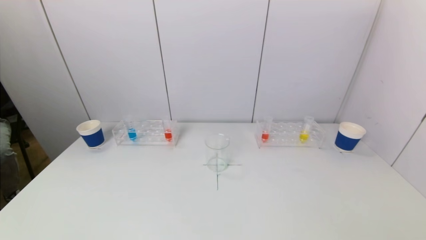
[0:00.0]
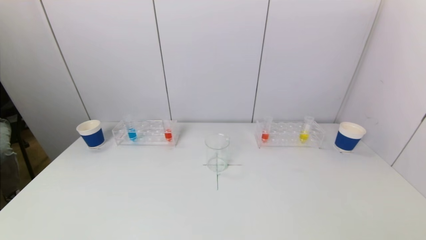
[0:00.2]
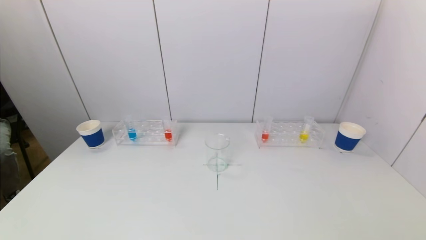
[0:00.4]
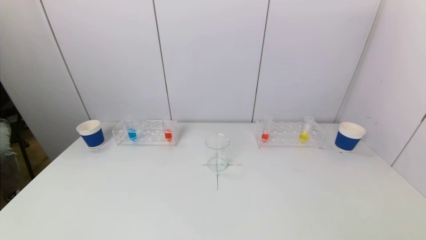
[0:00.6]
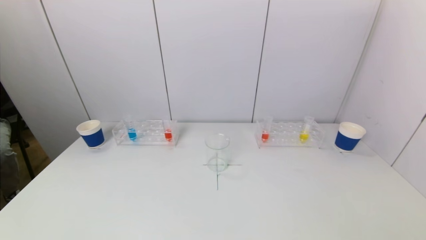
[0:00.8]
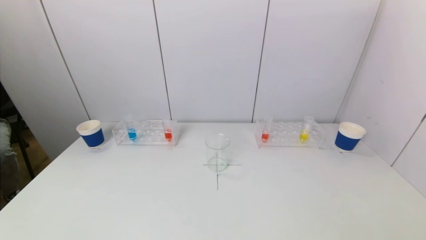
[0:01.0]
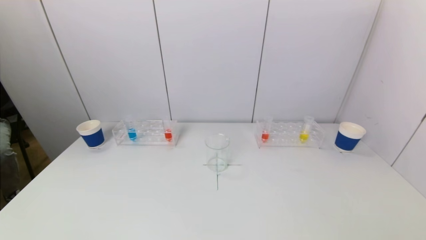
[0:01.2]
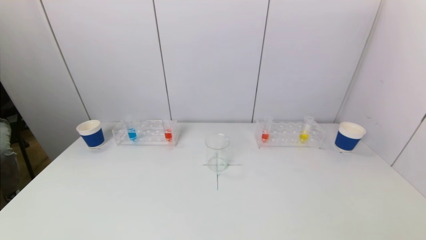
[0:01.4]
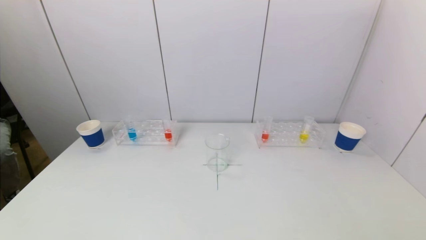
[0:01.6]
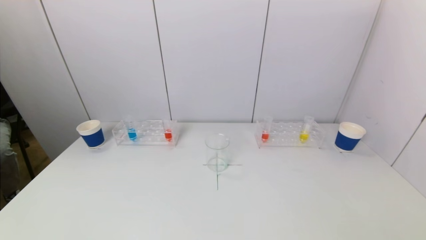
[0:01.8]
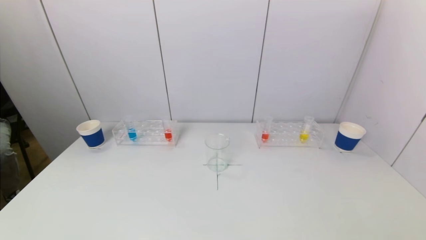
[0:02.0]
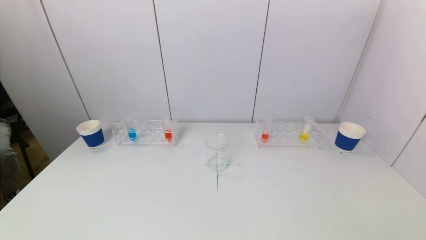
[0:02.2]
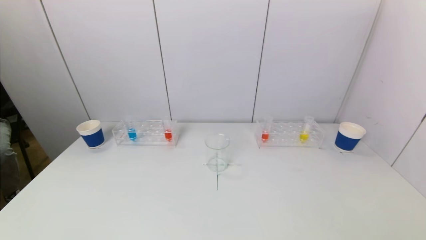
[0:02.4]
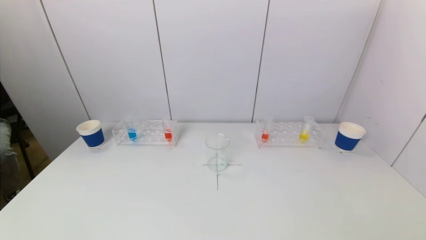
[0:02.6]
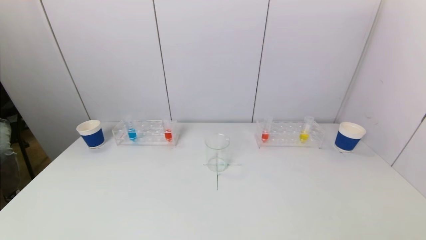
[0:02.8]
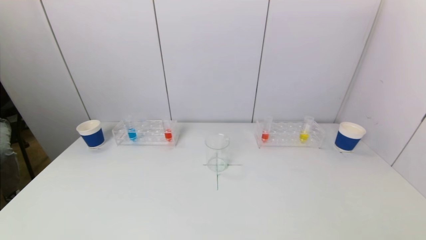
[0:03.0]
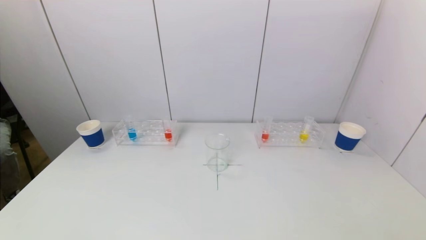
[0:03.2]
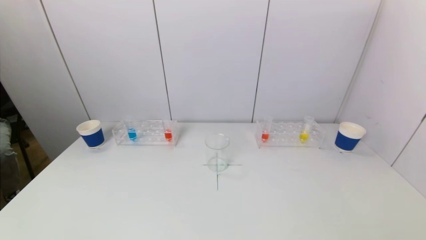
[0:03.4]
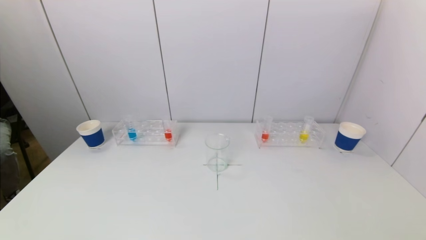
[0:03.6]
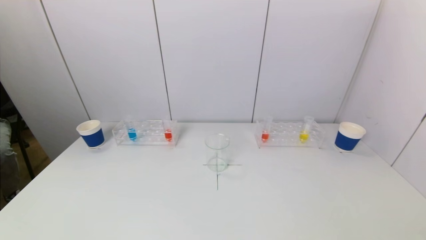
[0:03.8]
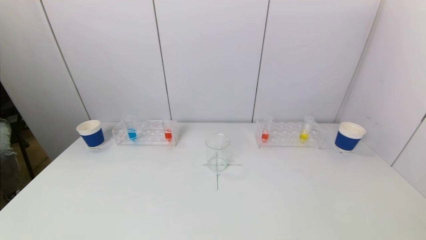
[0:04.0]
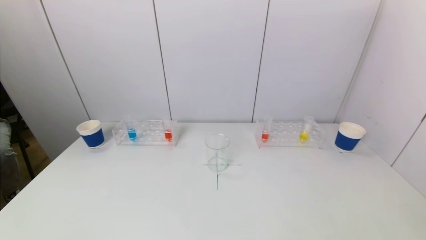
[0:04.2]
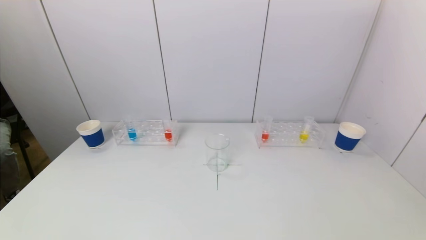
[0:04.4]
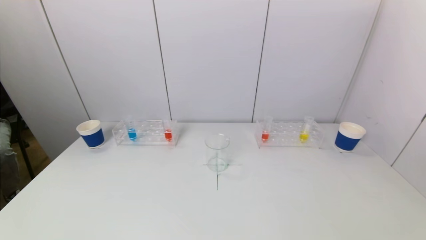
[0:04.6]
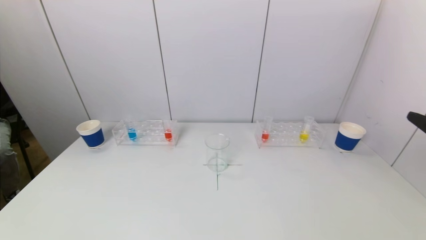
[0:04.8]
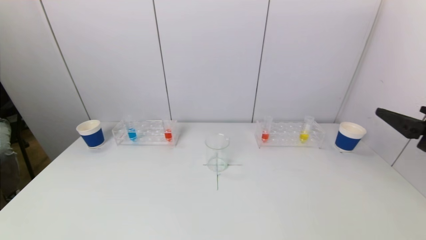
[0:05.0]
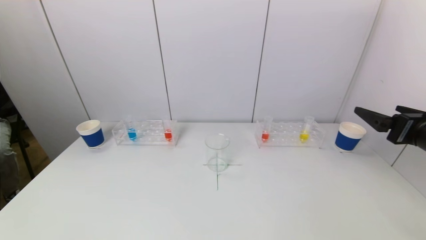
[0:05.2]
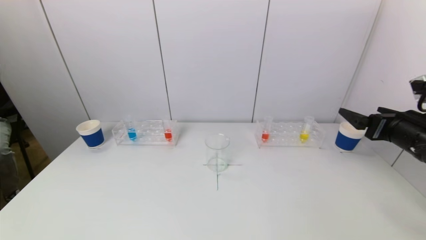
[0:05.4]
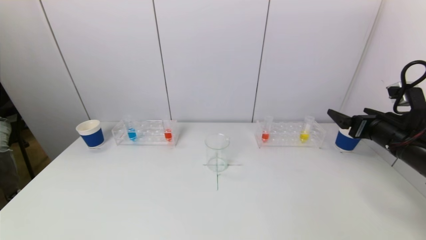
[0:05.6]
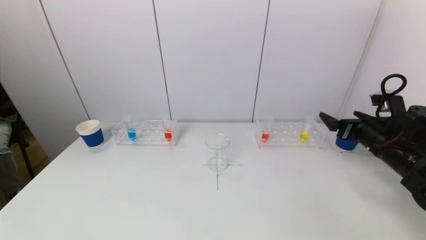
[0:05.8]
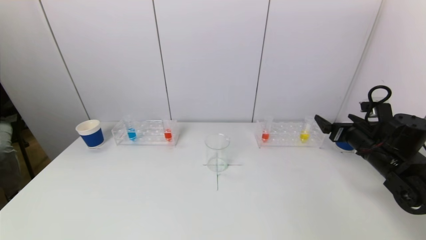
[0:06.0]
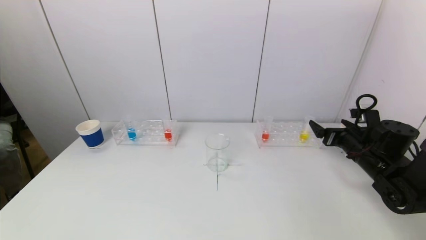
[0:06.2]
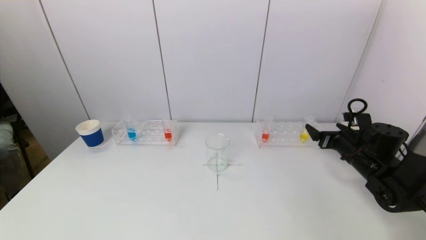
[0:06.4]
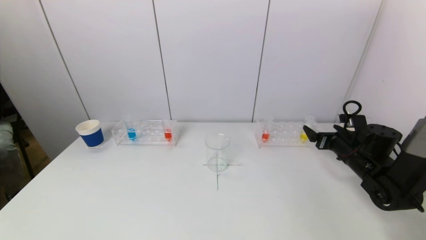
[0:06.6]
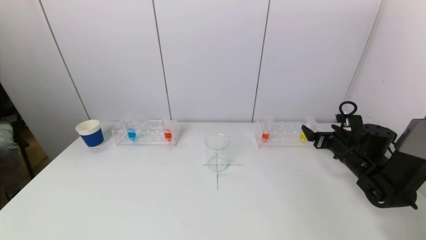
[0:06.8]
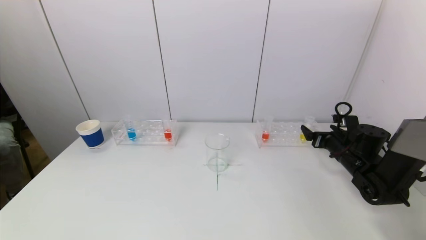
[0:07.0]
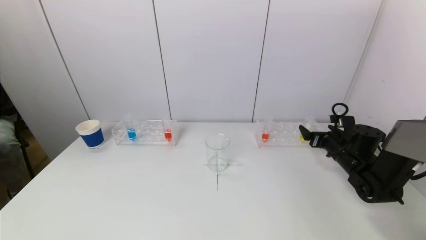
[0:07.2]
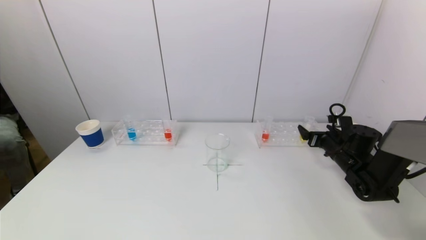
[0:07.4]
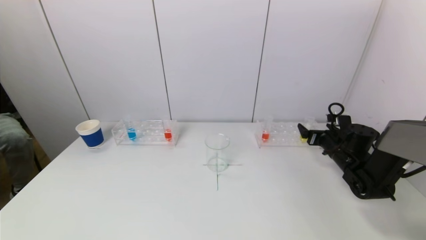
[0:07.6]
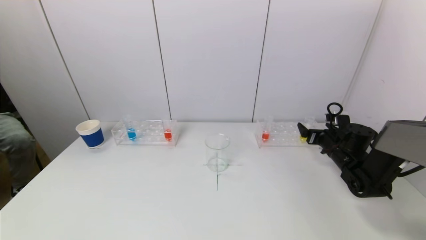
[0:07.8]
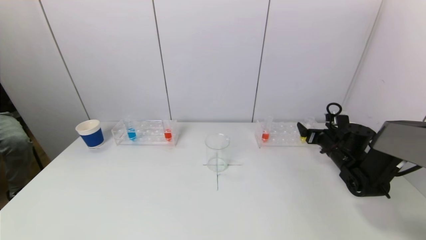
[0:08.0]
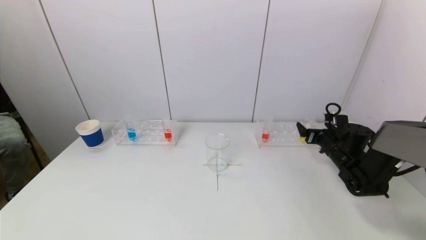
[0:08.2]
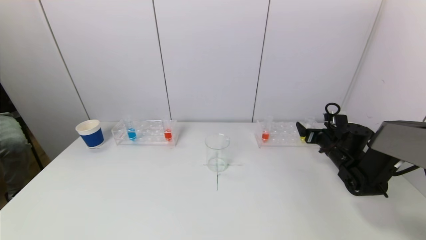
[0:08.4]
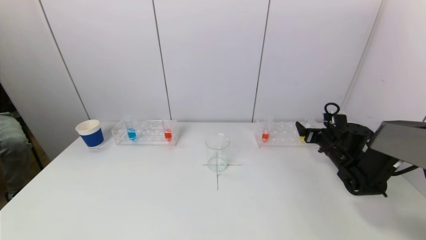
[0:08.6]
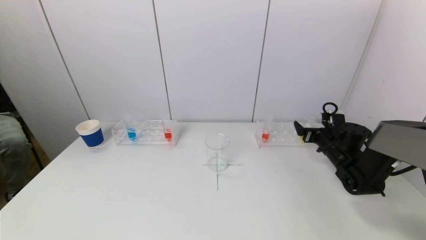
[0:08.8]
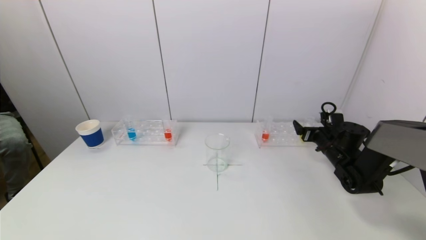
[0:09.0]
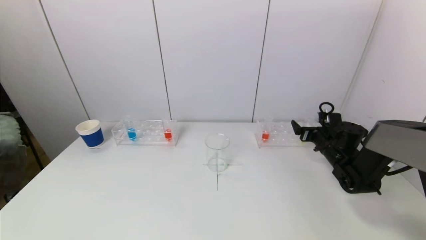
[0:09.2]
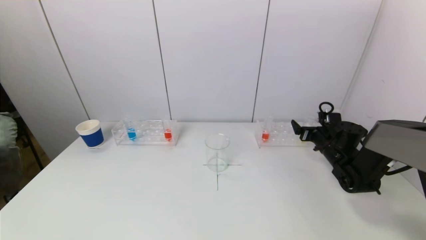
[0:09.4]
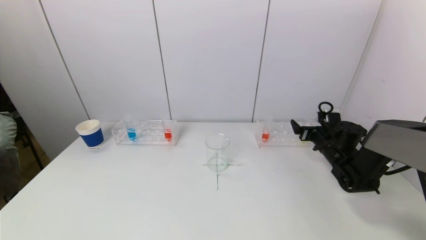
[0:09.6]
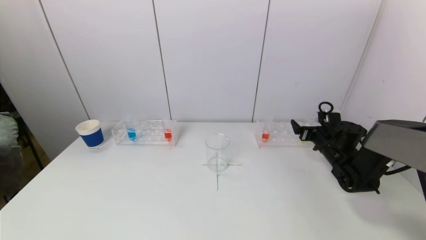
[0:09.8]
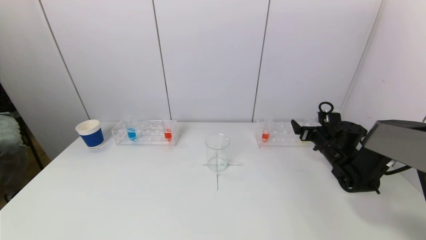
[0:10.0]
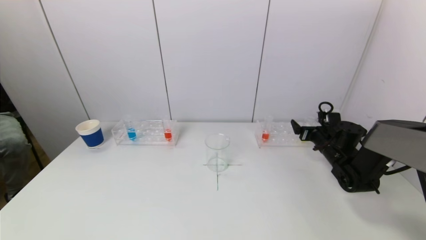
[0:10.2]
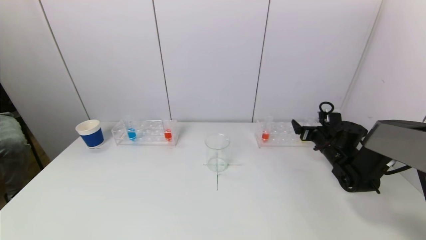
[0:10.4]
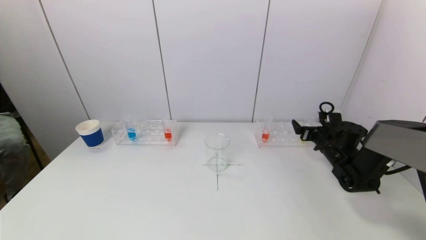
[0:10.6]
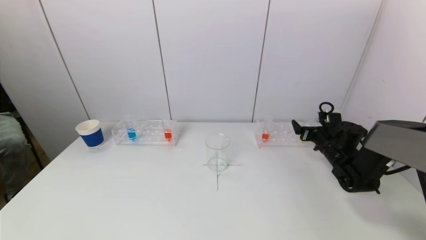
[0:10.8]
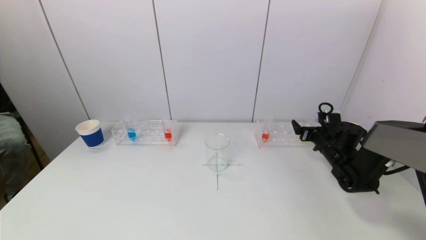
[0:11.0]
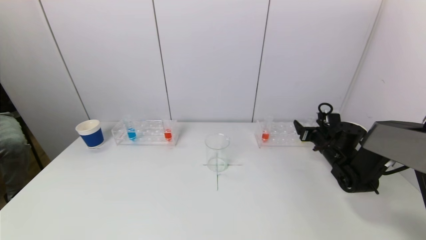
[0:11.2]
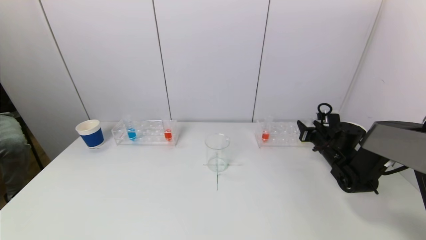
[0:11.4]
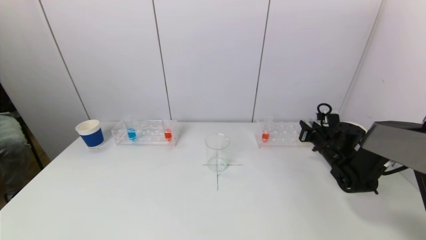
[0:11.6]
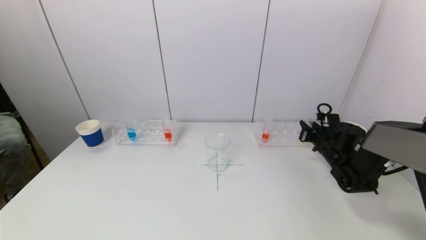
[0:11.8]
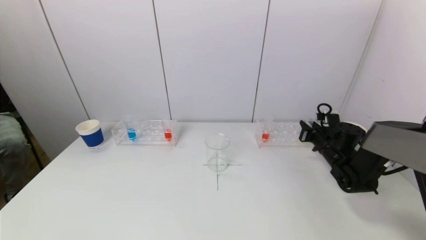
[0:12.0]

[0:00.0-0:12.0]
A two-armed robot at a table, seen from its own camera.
Task of the whole recording: pick up a test tube with pigment on left test tube rack and a test tube with pigment on right test tube rack by grippers and pour them into the beaker.
Step, 0:00.0 to 0:12.0: Grasp the yellow reagent with the right gripper.
0:00.0 to 0:03.0: Both grippers stay about where they are.
0:04.4 to 0:06.0: The right gripper is displaced forward and downward by approximately 30 cm.
0:06.0 to 0:07.6: The right gripper travels forward and downward by approximately 10 cm.
0:07.6 to 0:09.0: The grippers move only a little.
0:09.0 to 0:10.4: Both grippers stay about where they are.
0:10.4 to 0:12.0: The right gripper closes.

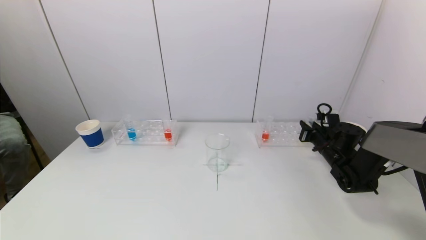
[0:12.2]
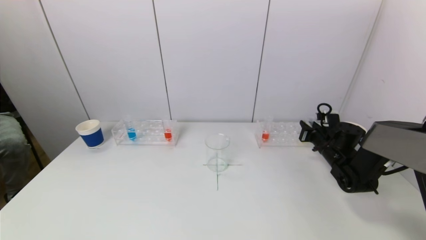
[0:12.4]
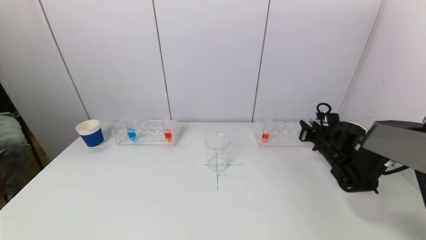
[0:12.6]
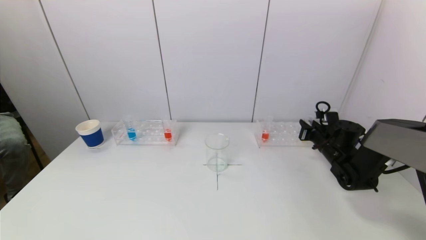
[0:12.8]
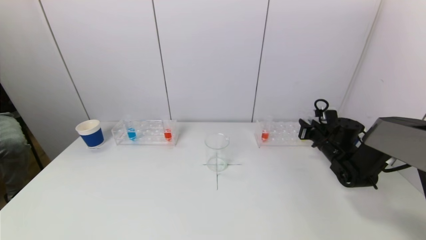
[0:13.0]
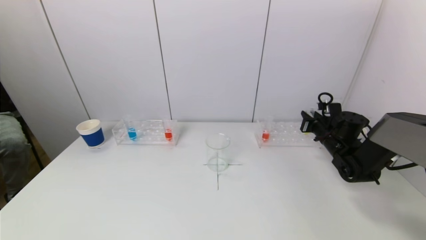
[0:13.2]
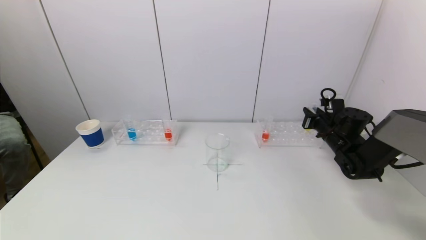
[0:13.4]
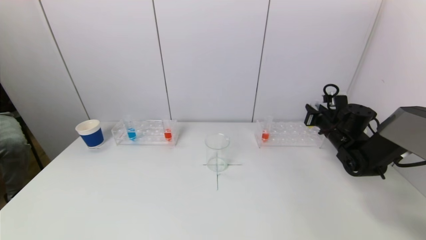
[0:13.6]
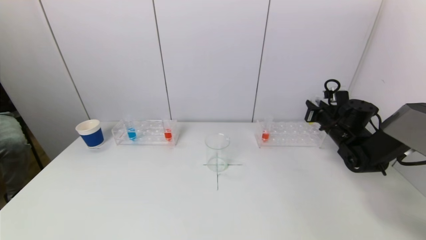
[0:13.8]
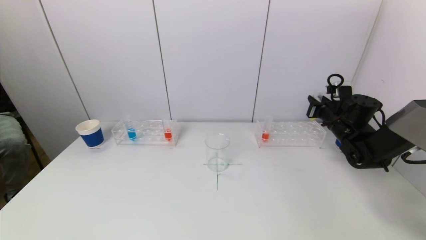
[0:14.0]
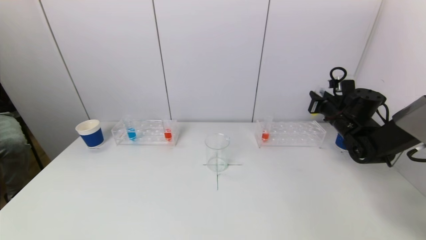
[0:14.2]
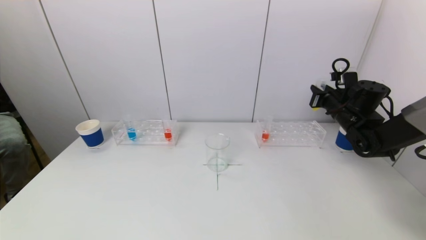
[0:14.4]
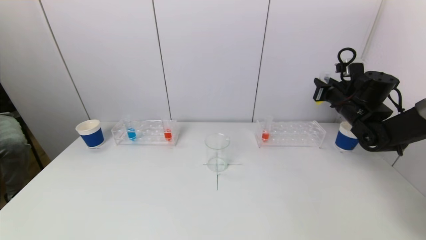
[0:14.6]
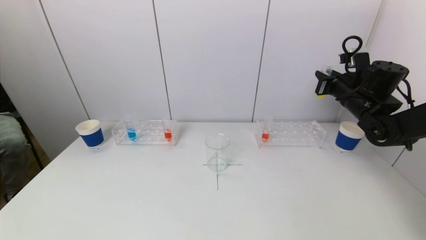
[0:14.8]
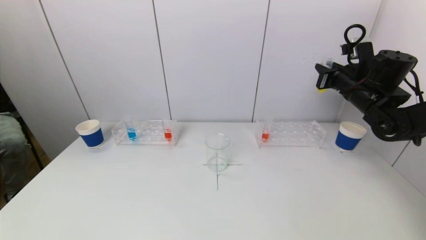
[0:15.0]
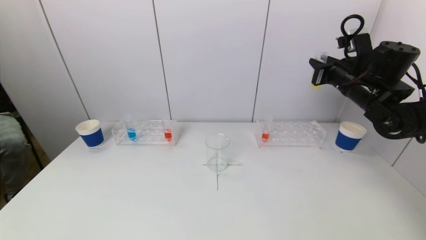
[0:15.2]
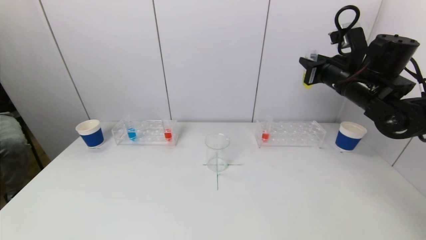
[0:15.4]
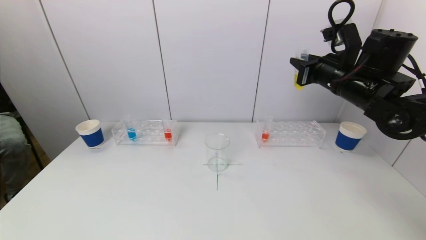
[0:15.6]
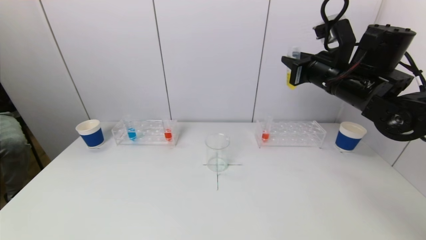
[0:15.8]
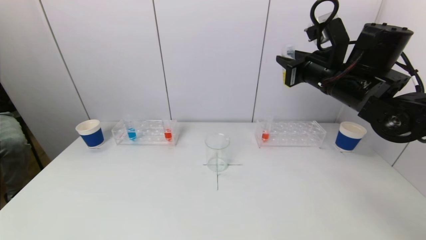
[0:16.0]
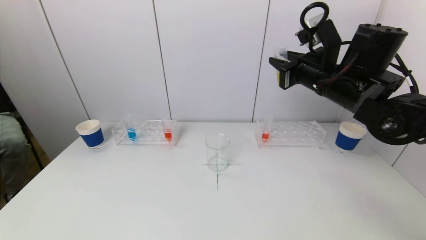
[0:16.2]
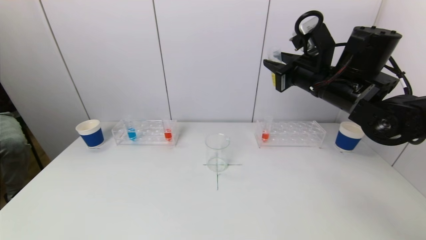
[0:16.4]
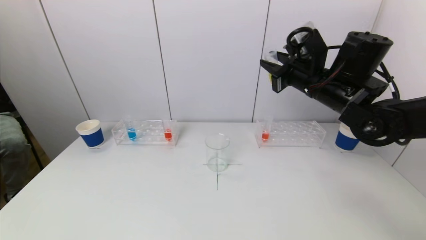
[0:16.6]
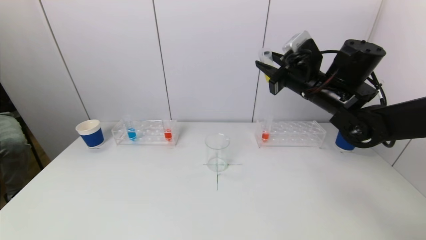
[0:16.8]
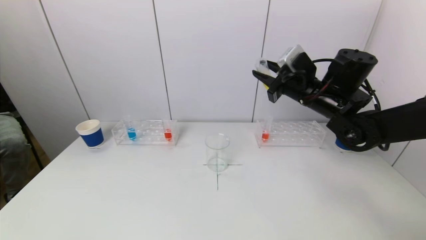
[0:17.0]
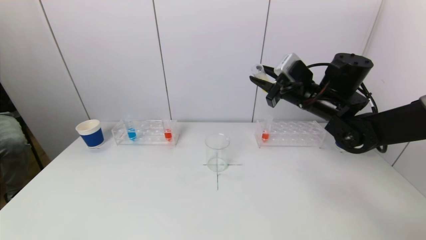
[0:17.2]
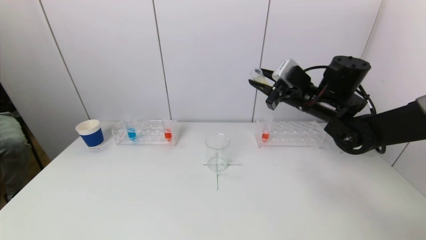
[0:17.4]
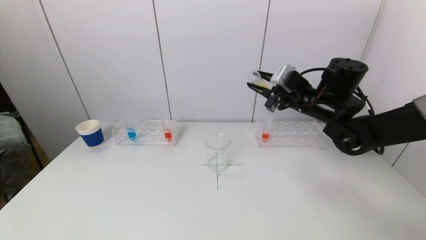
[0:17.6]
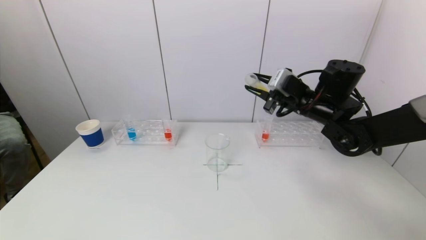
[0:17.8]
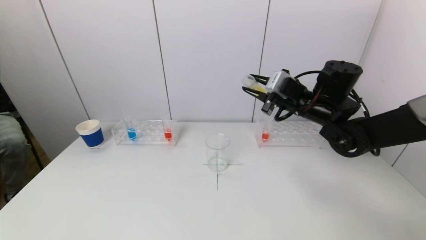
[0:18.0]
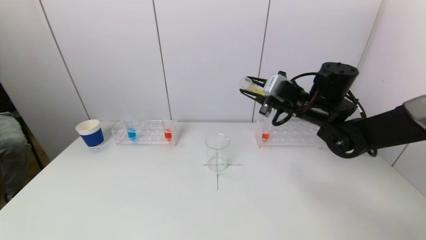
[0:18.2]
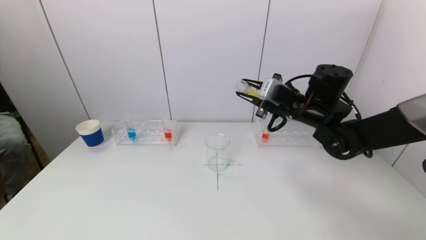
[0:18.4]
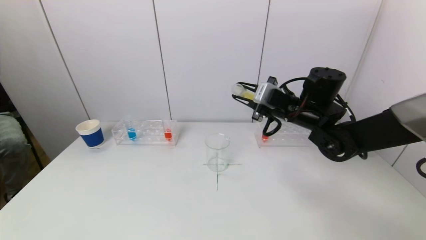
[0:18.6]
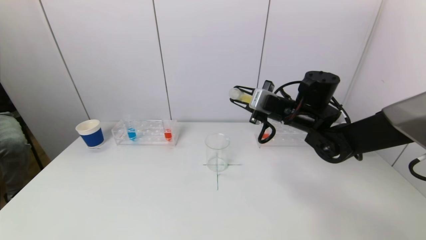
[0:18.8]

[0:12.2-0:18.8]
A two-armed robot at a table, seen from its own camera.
Task of the whole recording: pick up a test tube with pigment on left test tube rack and a test tube with pigment on right test tube rack by grippers and pour them into the beaker.
0:12.2 to 0:13.8: The right gripper is displaced upward by roughly 5 cm.
0:13.8 to 0:15.4: The right gripper heads upward and to the left, covering about 15 cm.
0:15.4 to 0:17.2: The right gripper shifts some 5 cm to the left.
0:17.2 to 0:18.8: The right gripper shifts by about 5 cm.
